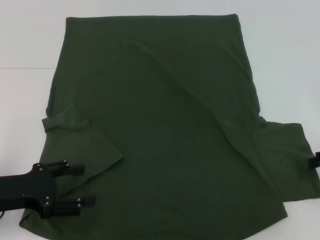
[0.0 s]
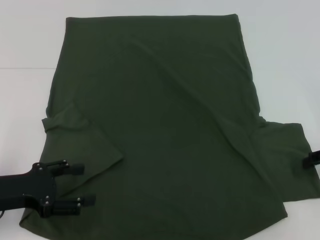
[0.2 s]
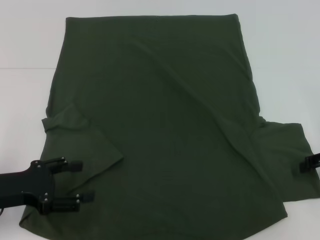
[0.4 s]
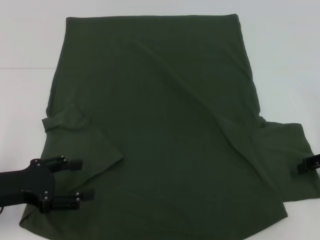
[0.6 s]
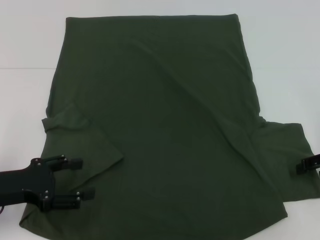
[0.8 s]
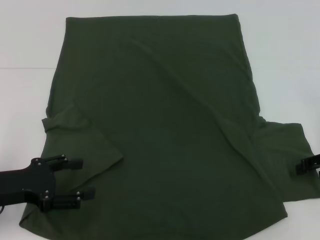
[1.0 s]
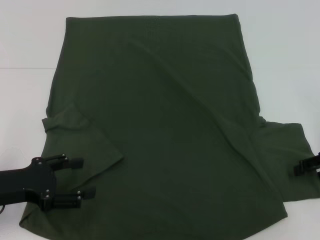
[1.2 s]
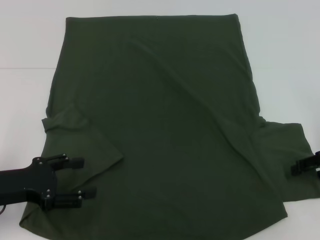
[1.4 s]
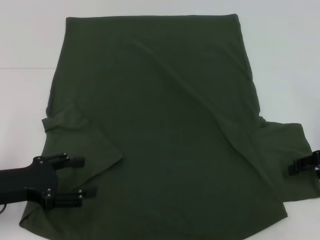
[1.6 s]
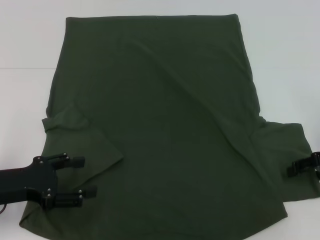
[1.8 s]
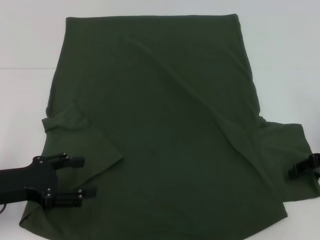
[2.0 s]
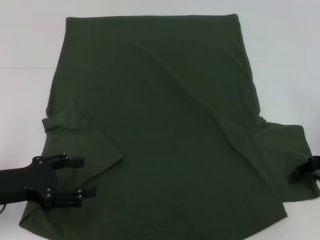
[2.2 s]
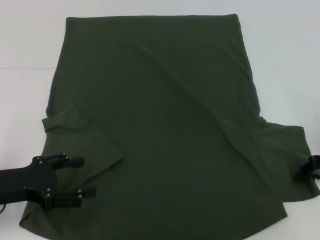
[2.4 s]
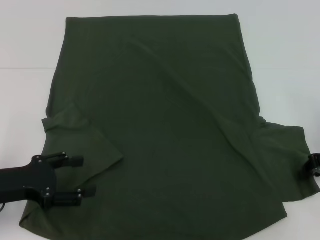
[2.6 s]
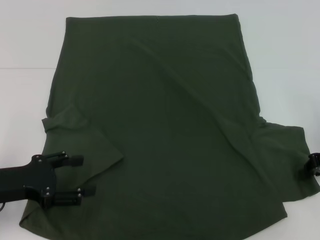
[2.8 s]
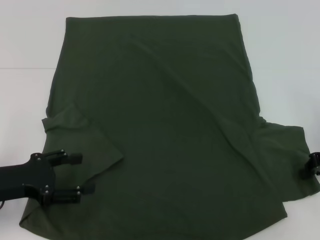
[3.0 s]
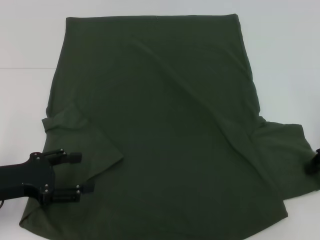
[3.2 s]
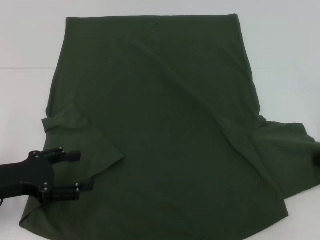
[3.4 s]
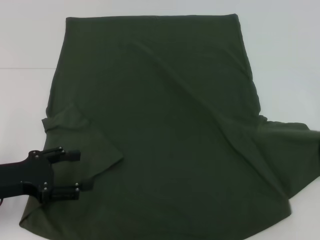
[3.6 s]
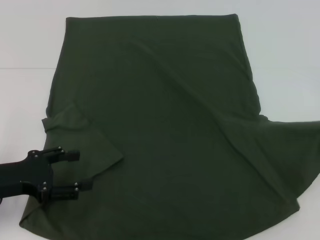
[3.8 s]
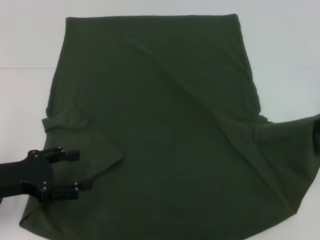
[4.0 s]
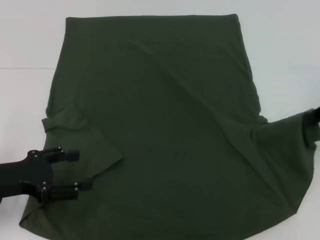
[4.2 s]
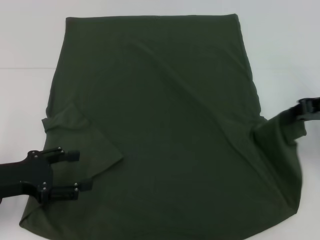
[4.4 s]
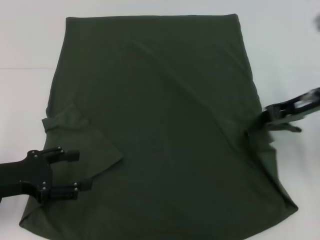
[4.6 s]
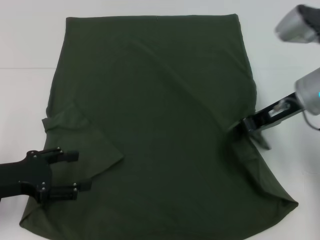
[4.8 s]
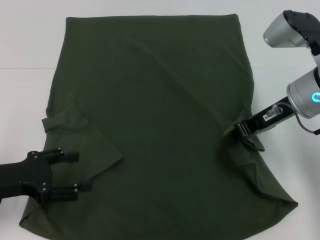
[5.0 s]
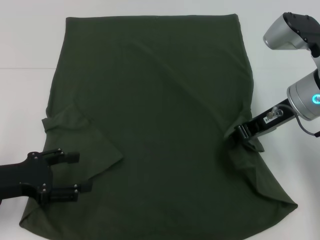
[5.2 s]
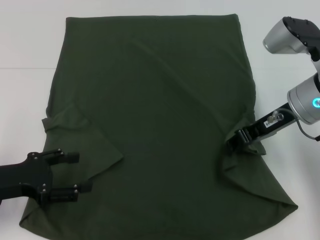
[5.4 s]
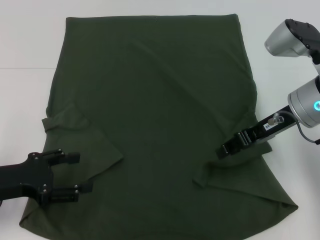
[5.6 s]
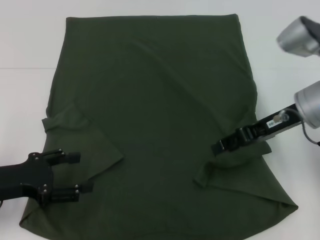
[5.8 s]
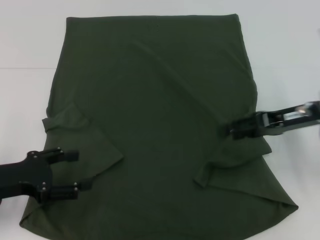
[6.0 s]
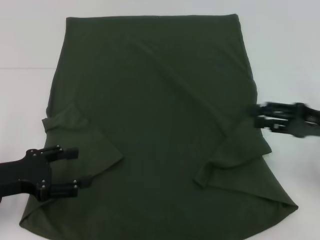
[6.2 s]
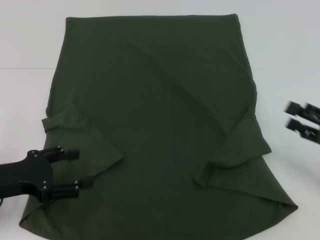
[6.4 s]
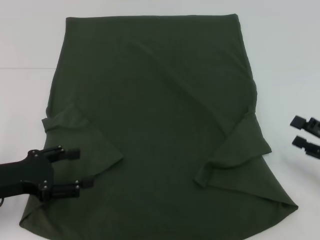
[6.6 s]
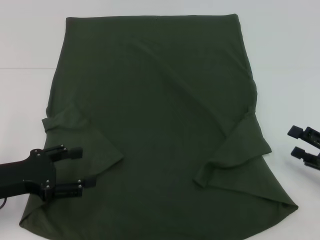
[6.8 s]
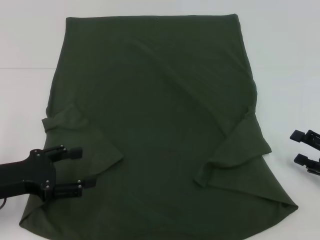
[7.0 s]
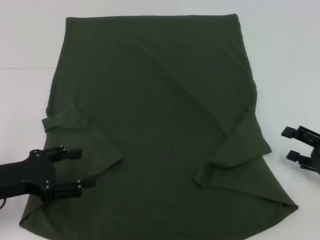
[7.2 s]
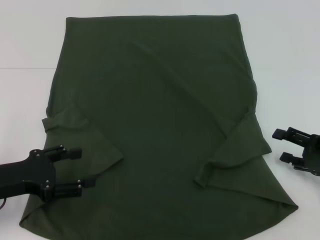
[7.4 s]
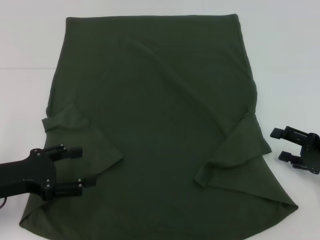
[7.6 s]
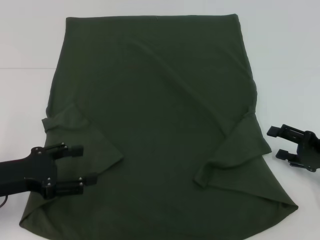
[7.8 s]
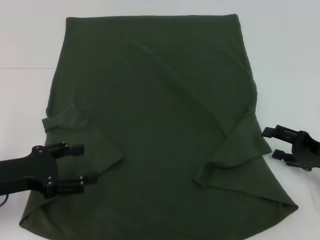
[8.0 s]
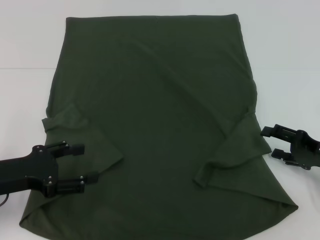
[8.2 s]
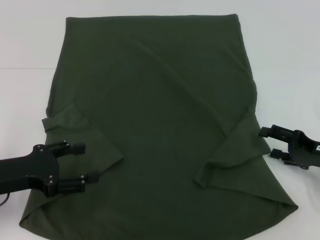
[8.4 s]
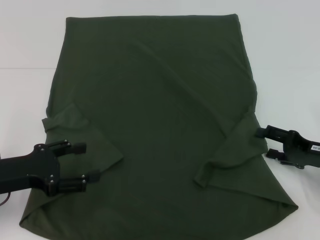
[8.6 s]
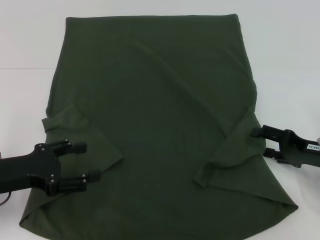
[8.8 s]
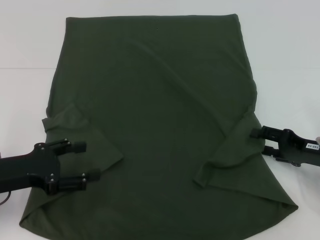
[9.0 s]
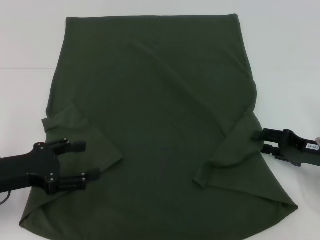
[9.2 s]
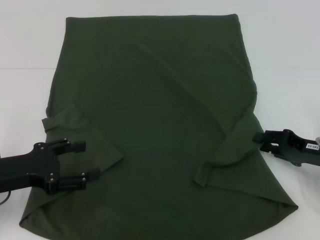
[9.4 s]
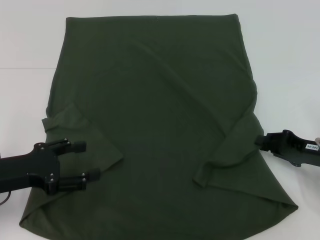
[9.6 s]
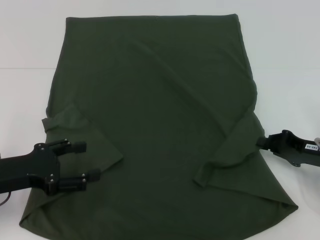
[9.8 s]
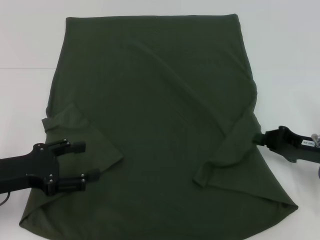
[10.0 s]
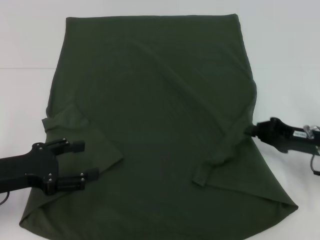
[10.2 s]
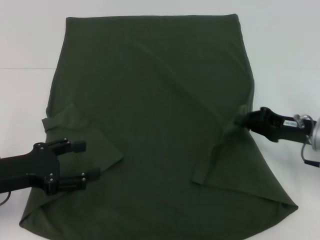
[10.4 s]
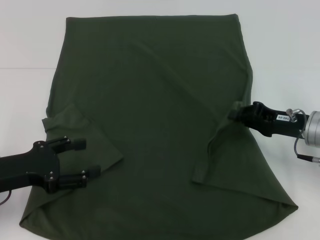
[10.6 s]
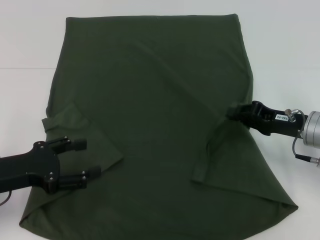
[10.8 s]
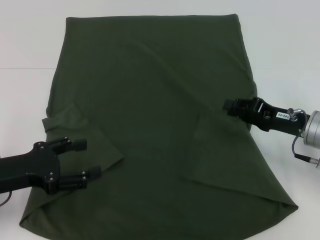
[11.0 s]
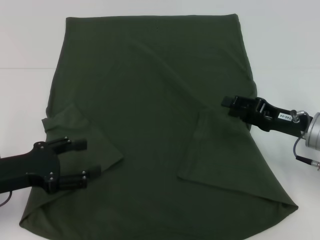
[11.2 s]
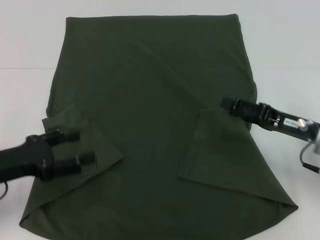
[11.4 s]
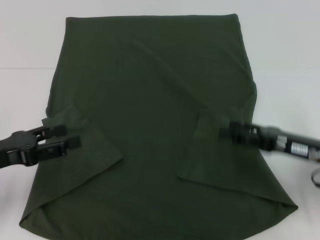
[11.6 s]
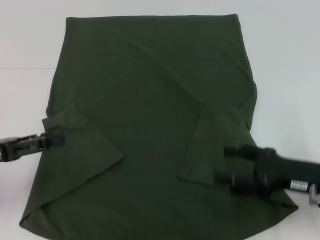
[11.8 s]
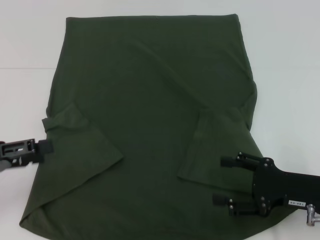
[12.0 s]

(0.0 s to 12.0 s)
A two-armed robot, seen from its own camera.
Step, 0.0 s - 11.0 s: Fold the bottom right sleeve with your right hand.
0.0 s - 1.6 s: The grippers move only a little.
1.6 s - 3.0 s: The right gripper closes up.
3.0 s - 4.4 s: The right gripper is displaced upward by approximately 5 cm.
4.4 s - 6.0 s: The right gripper moves to the left, some 5 cm, and opens its fingers.
6.0 s - 7.6 s: The right gripper shifts about 15 cm downward, to the right and backward, and opens.
7.6 s - 9.0 s: The grippers make only small movements.
9.0 s - 10.4 s: The right gripper changes place by roughly 5 cm, and closes up.
10.4 s - 12.0 s: The left gripper moves to the left, about 5 cm, while the right gripper goes approximately 10 cm backward, and opens up.

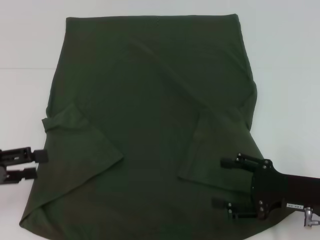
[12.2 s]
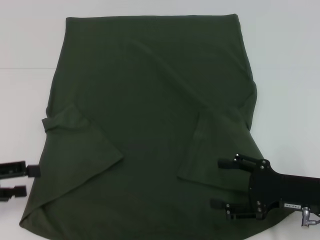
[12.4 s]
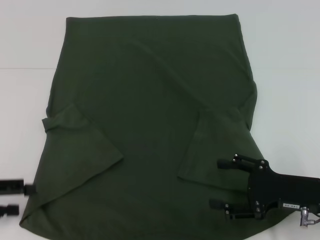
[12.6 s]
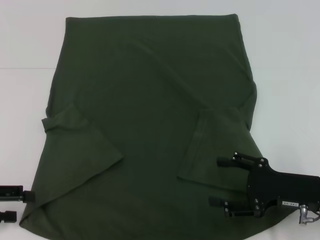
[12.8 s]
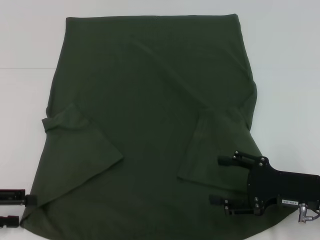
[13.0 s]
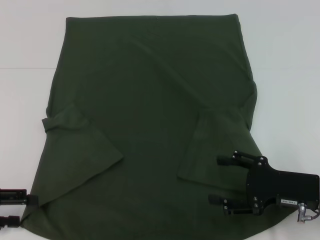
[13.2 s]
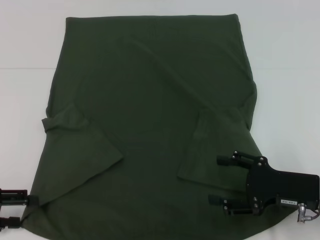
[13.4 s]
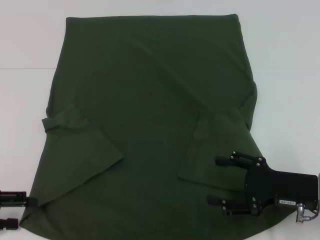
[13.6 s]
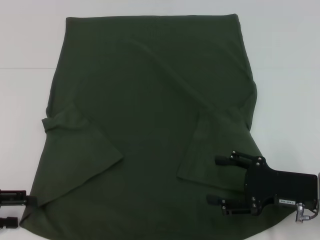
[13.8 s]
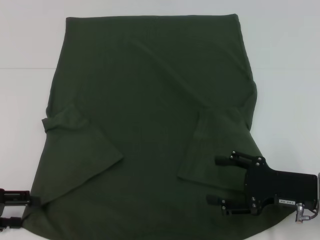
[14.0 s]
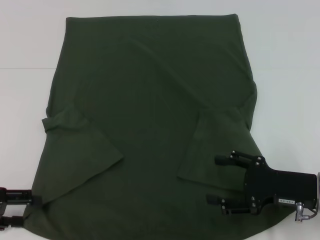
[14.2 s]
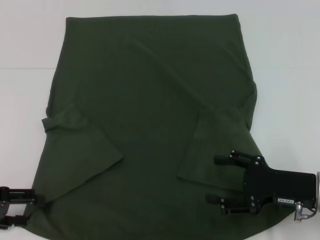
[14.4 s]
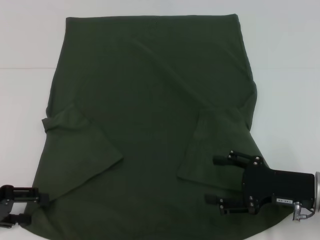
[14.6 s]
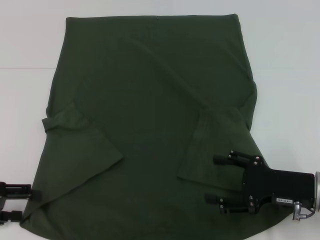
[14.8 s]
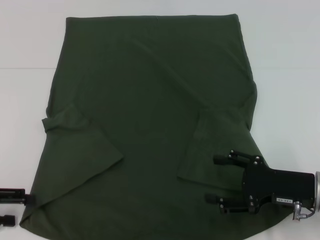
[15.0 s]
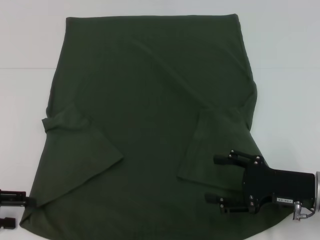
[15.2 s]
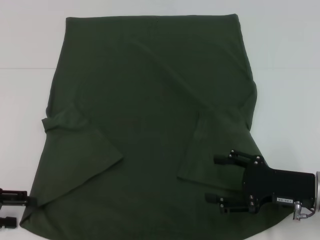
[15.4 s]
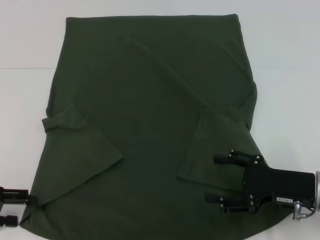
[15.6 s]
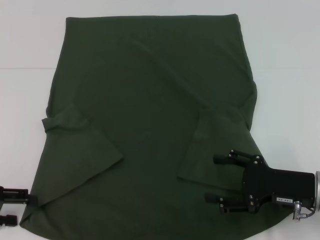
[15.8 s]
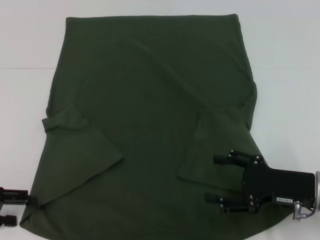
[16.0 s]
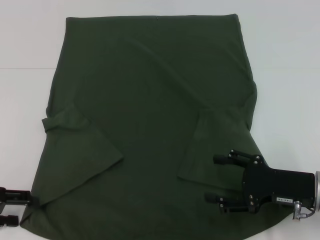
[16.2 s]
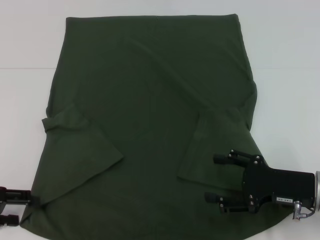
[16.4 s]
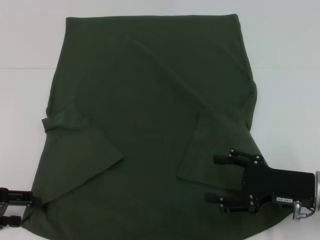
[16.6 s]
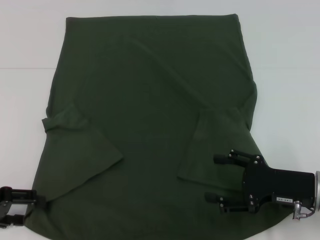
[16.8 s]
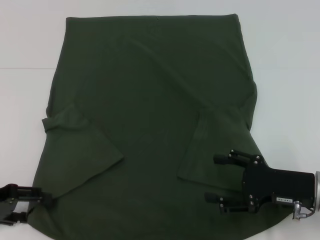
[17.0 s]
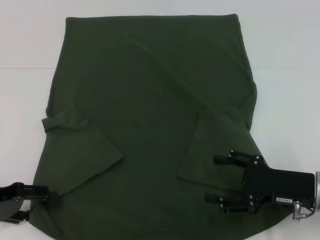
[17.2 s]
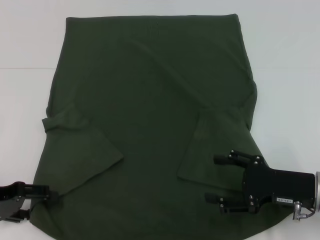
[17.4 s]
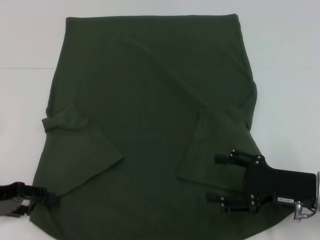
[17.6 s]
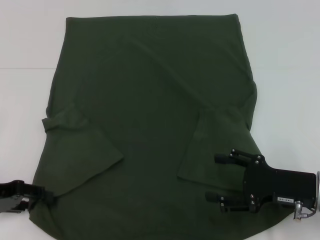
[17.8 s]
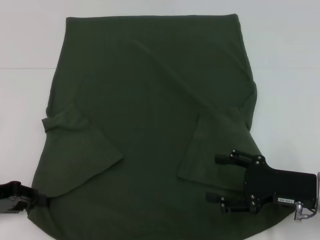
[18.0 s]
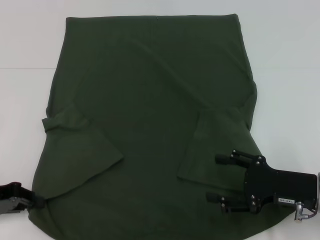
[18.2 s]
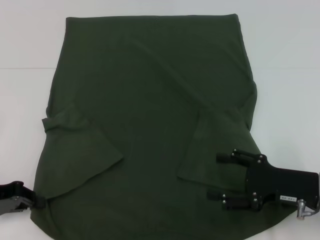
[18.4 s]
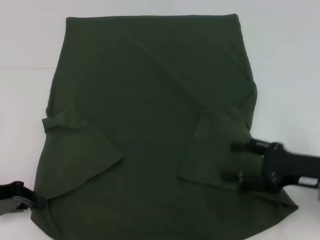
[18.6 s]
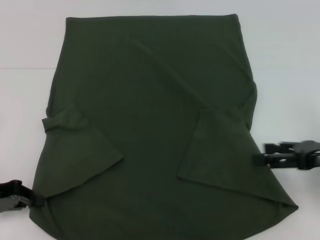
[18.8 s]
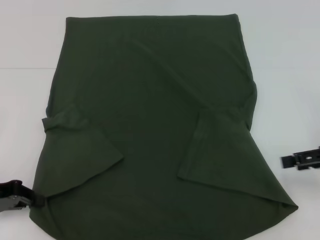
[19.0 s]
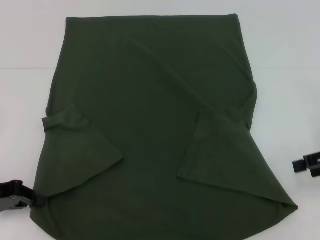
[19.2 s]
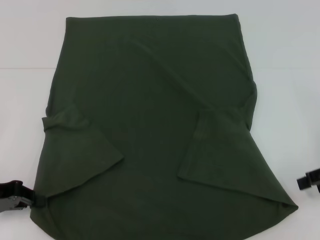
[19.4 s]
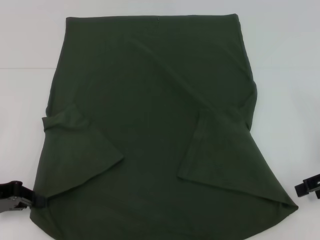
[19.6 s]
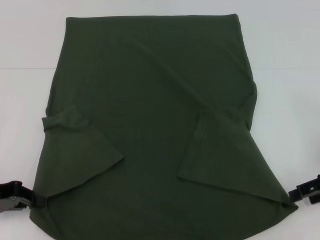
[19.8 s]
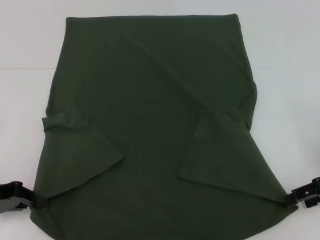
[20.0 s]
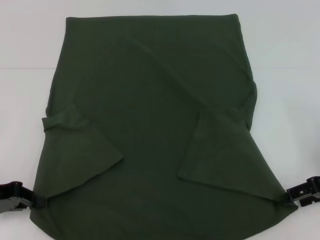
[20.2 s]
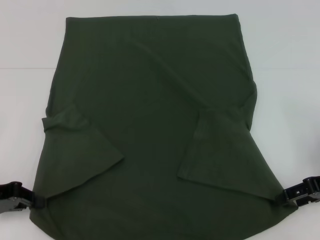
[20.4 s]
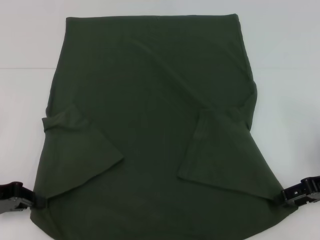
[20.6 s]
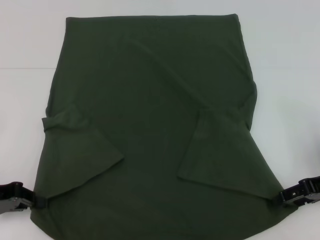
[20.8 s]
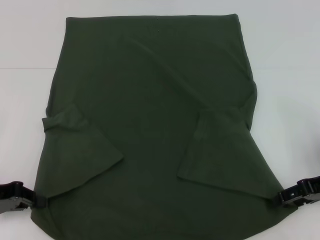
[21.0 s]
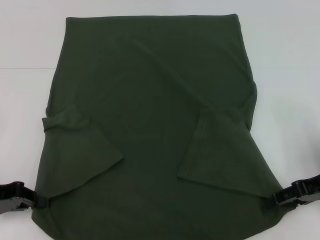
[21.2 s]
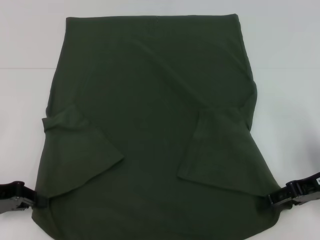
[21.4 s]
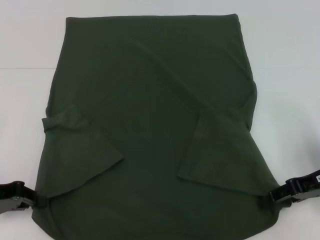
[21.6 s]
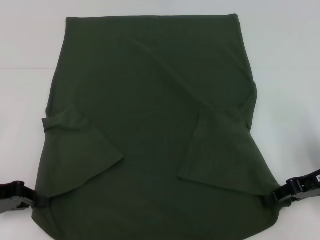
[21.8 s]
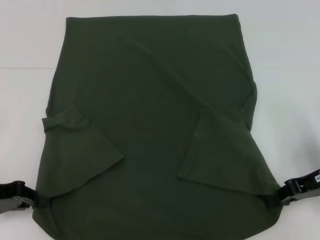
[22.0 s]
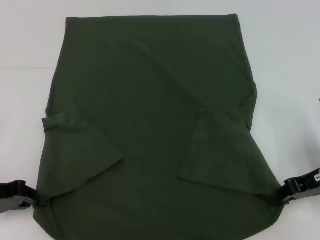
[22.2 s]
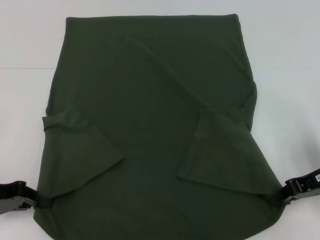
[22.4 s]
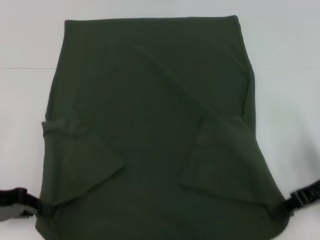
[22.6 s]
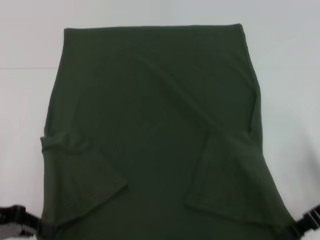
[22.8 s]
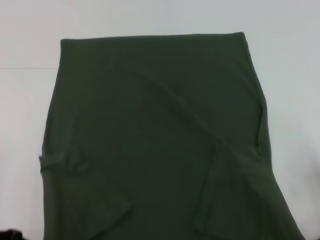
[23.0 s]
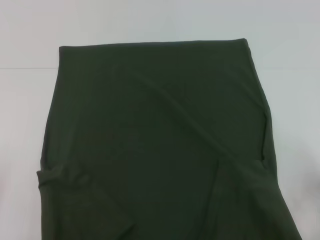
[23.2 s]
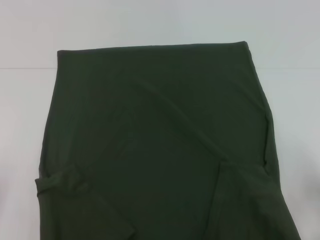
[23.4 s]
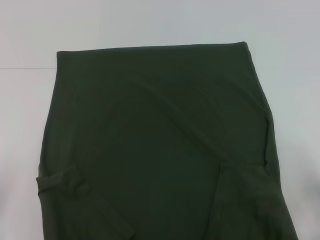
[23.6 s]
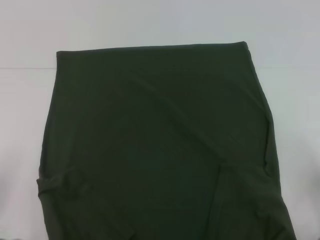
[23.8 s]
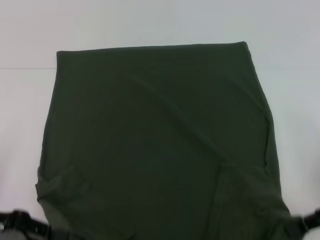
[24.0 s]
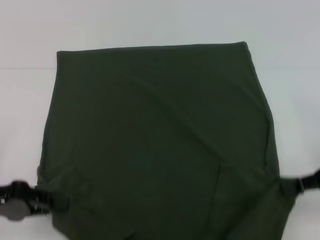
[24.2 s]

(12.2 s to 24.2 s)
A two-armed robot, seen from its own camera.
Step, 12.2 s - 18.2 s: Grab the bottom left corner with your left hand.
Step, 18.4 s - 22.2 s: Grab the bottom right corner with your right hand.
13.8 s - 15.2 s: The grippers move only a little.
15.2 s - 16.6 s: Both grippers stay put.
16.6 s - 18.2 s: The left gripper closes its fingers.
18.2 s - 19.8 s: The right gripper moves to the right and upward, roughly 10 cm.
19.8 s - 21.2 s: There are only small adjustments of the grippers.
21.2 s - 22.6 s: The right gripper closes.
22.6 s - 24.2 s: The right gripper moves approximately 5 cm.
